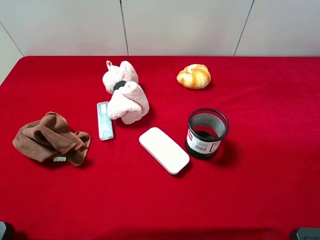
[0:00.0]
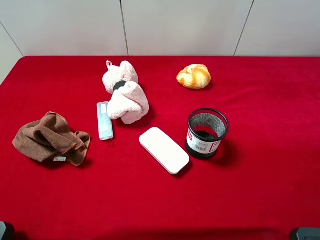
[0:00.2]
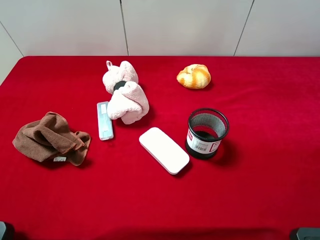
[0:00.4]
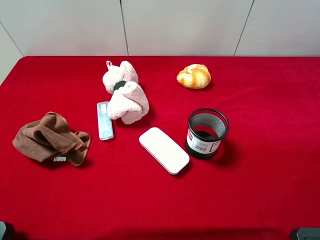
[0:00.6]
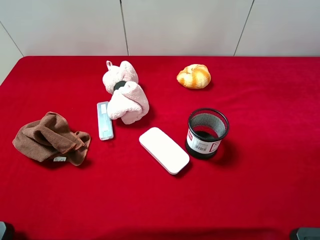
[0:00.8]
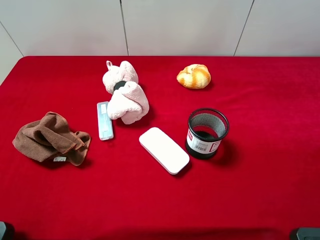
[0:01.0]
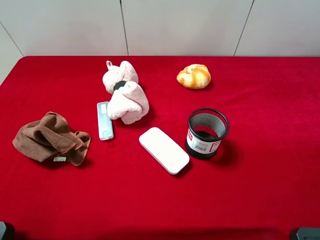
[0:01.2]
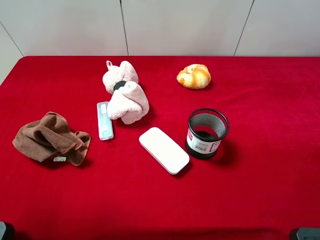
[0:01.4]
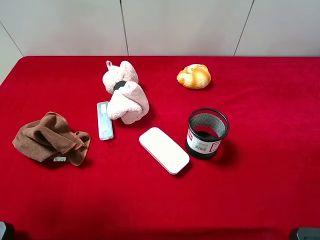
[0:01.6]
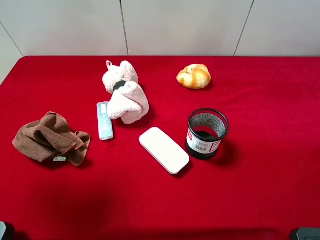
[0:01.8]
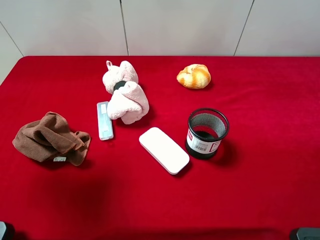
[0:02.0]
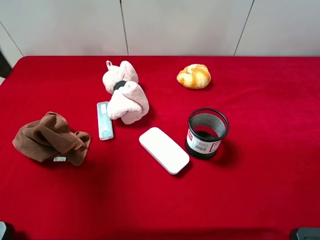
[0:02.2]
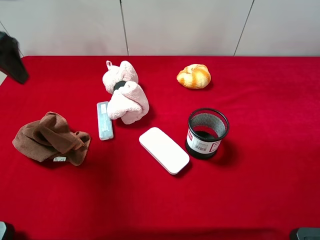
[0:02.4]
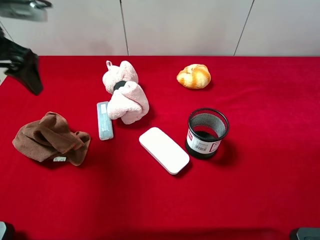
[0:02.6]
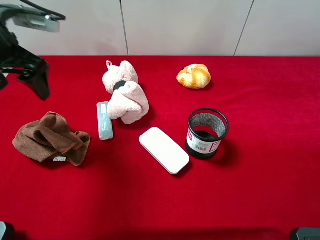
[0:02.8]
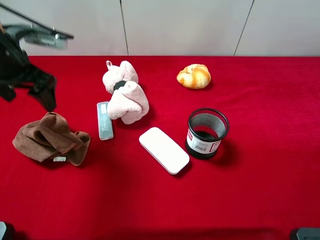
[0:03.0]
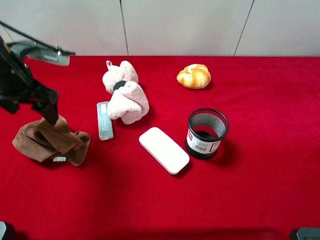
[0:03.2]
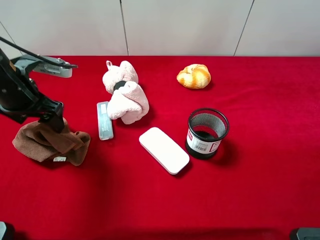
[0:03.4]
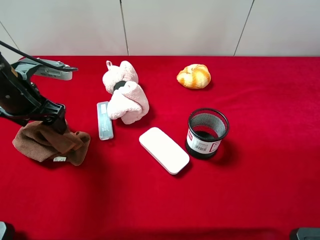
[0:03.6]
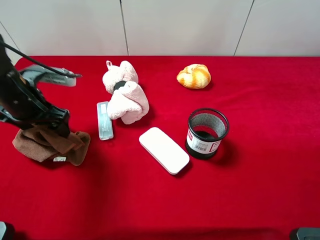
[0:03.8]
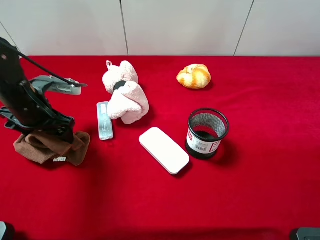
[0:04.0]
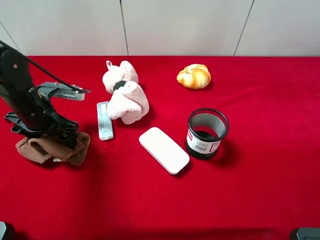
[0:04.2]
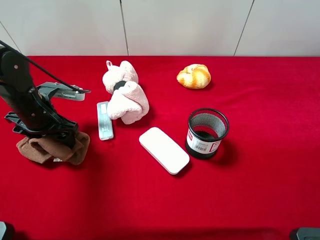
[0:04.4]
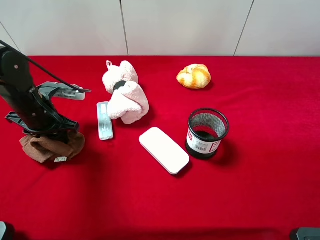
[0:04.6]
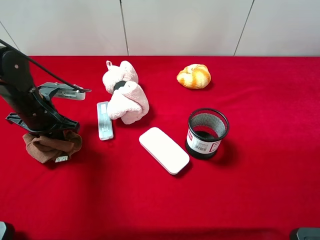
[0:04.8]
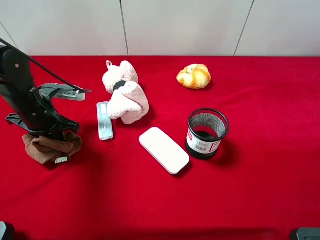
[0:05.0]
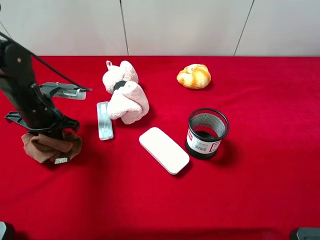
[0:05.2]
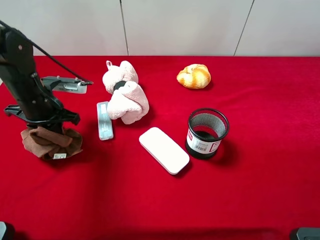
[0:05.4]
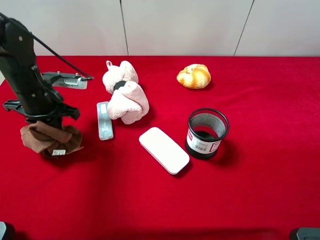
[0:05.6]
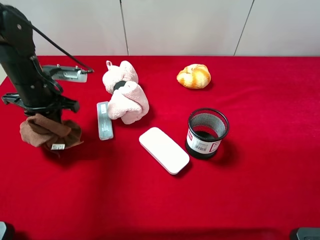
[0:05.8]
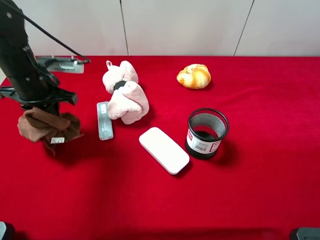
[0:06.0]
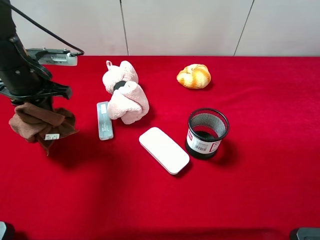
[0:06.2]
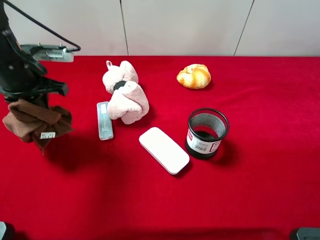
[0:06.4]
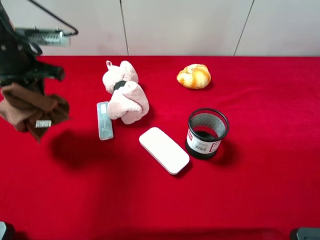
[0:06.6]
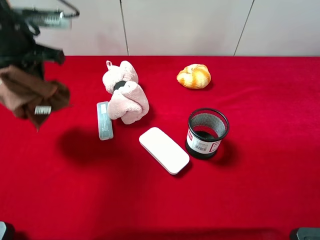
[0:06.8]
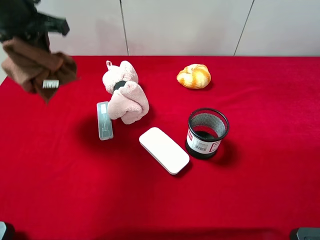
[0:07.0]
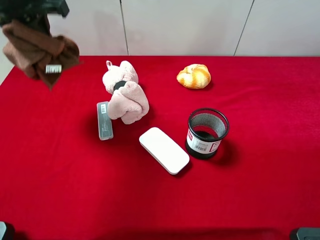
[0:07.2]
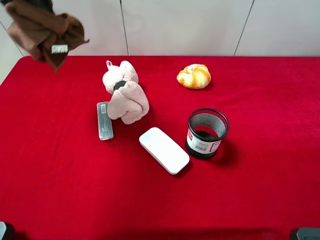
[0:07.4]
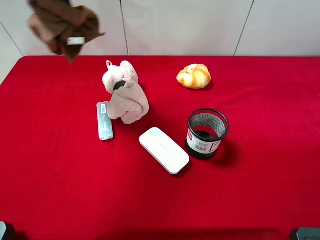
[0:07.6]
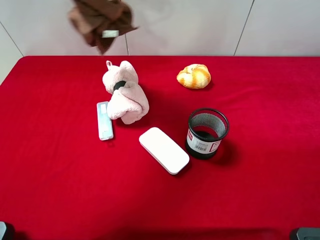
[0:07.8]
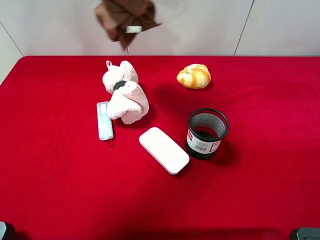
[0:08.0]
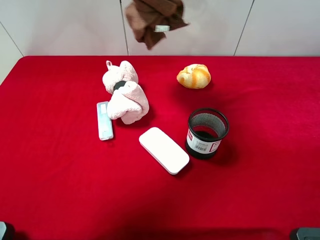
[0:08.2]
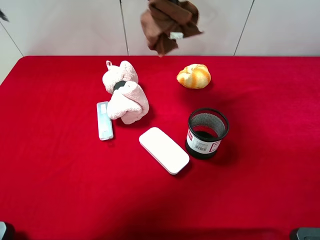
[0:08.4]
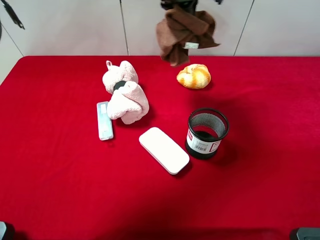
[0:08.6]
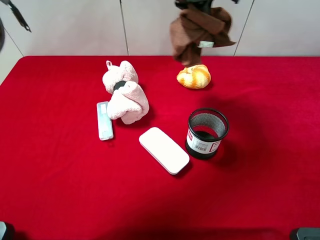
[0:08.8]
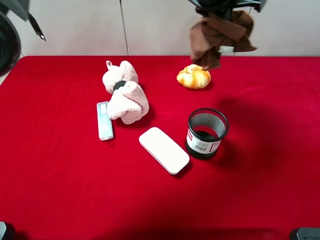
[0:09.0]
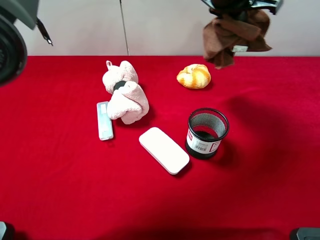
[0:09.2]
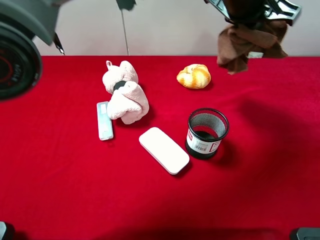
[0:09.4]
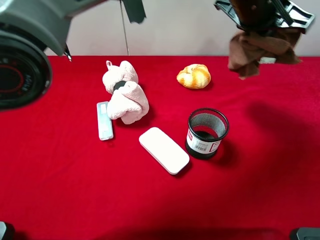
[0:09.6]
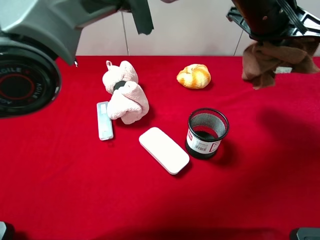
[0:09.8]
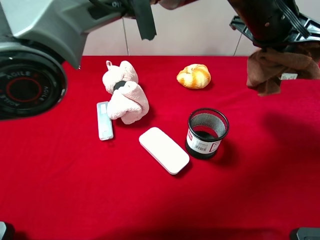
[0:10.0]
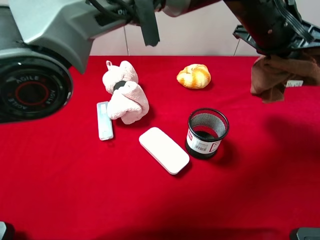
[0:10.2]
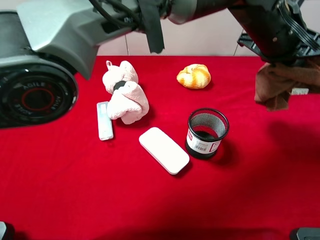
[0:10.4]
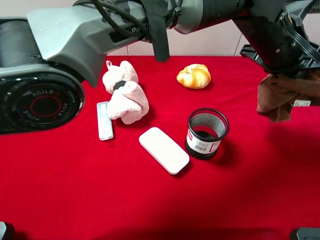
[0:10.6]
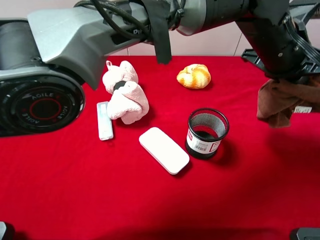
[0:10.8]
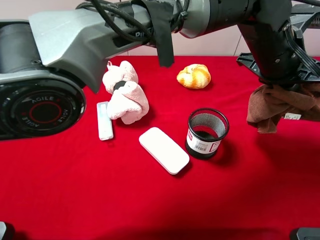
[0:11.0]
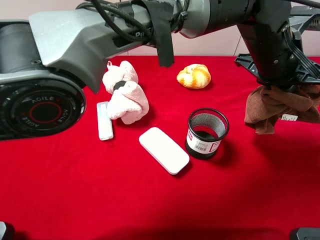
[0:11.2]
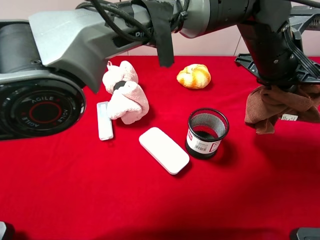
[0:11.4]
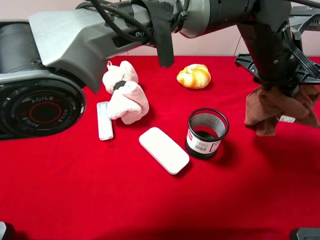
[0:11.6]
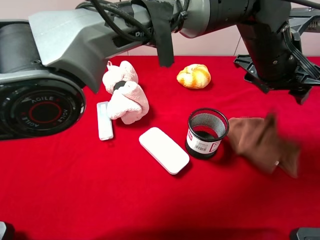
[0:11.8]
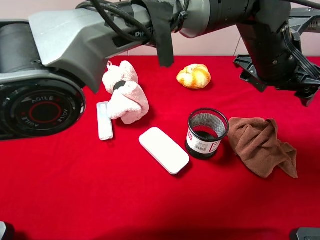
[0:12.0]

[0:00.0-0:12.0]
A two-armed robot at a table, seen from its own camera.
Task of the whole recording: the gripper move the object.
Step, 0:00.0 to 0:04.8: Grasp the brown towel with the left gripper.
0:00.0 to 0:01.6: The left gripper heads forward and upward, covering approximately 15 cm.
0:01.6 to 0:03.0: The left gripper shifts approximately 20 cm forward and downward.
0:03.0 to 0:04.4: The left gripper goes about 10 cm downward.
0:04.4 to 0:06.0: The left gripper shifts about 5 cm upward, and closes its fingers.
0:06.0 to 0:07.6: The left gripper moves upward, about 15 cm.
0:07.6 to 0:09.0: The left gripper travels to the right by roughly 25 cm.
0:09.0 to 0:10.4: The left gripper shifts approximately 10 cm to the right, downward and backward.
0:10.4 to 0:12.0: The left gripper opens.

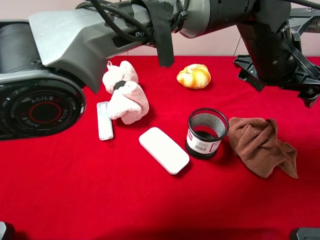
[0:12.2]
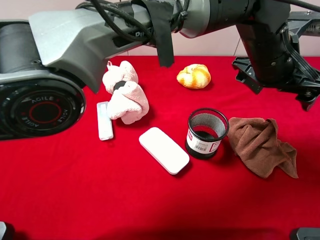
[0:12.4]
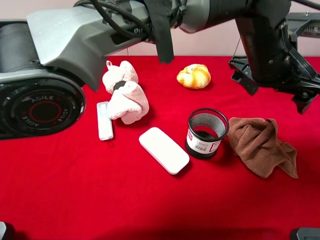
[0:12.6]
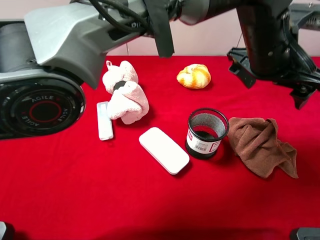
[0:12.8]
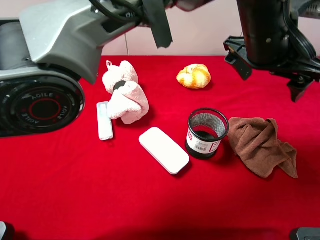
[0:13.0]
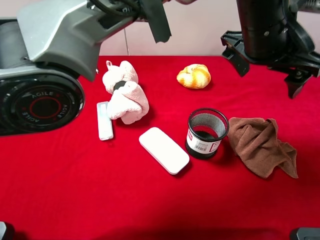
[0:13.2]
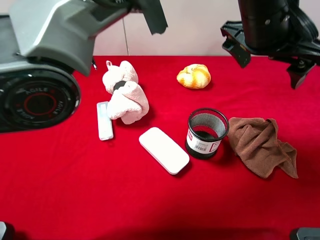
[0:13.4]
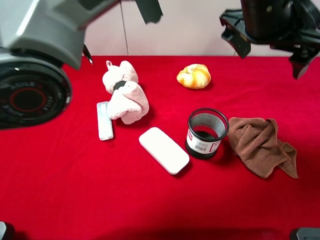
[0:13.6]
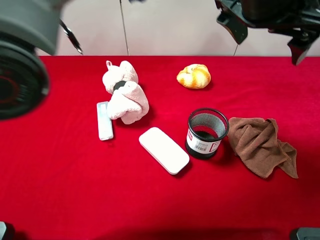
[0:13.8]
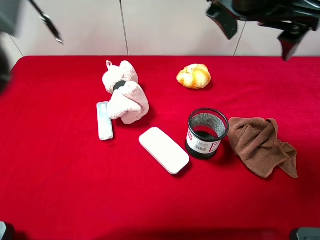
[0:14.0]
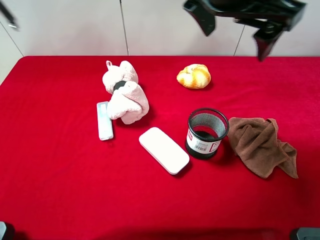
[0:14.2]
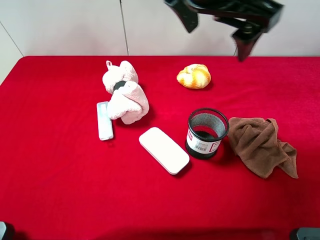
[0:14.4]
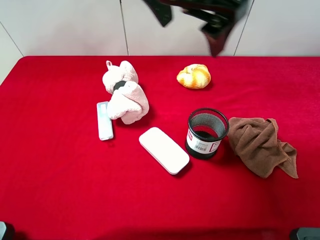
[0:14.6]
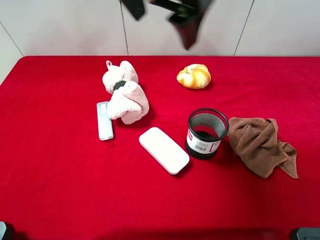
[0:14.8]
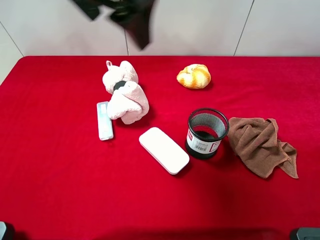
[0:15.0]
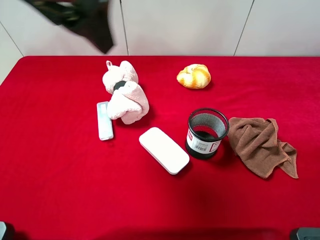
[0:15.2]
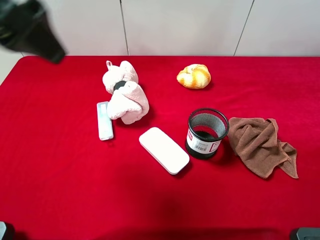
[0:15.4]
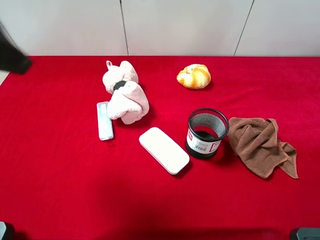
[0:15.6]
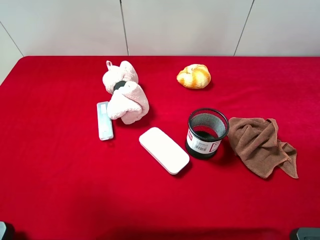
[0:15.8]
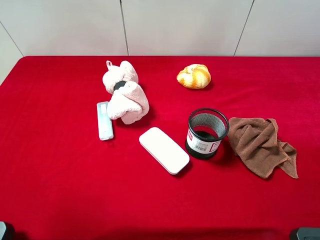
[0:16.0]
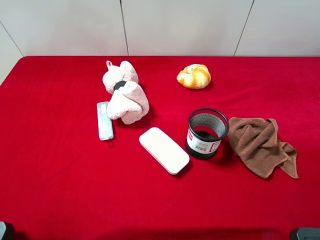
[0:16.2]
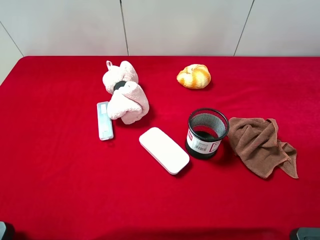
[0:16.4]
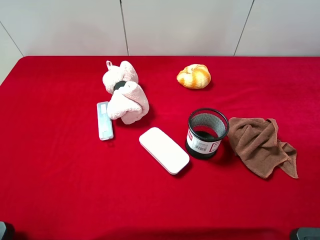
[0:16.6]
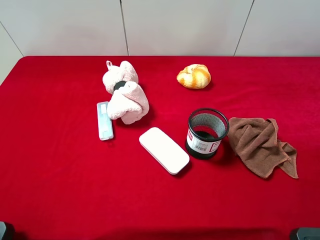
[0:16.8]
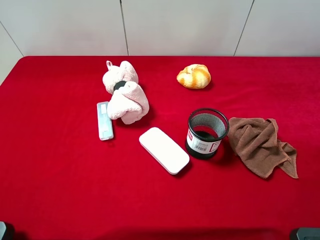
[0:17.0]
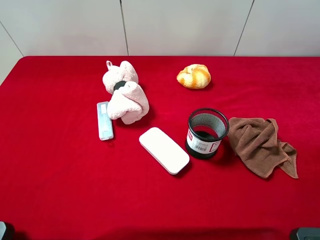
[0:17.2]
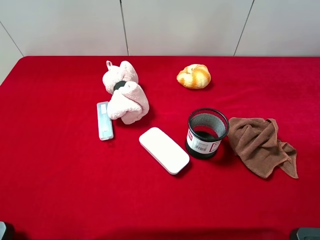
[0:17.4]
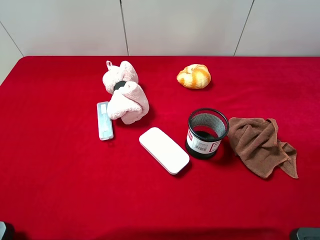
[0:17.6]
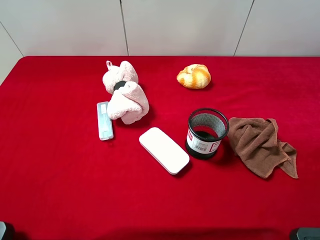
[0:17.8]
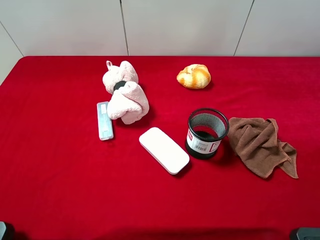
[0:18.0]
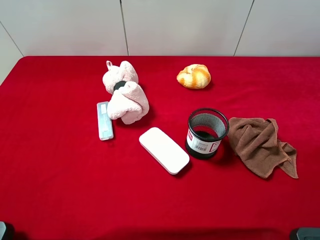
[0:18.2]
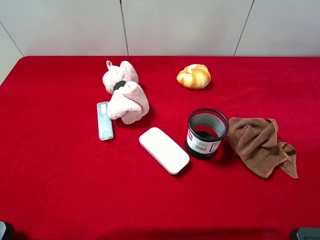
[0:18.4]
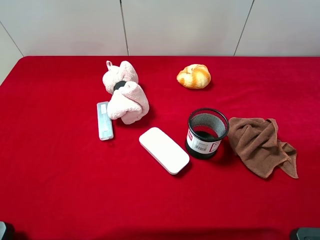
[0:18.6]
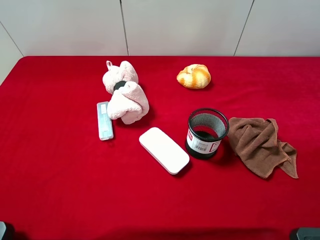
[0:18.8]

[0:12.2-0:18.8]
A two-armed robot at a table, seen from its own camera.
Task of the whole recording: the gripper move the object.
0:12.2 to 0:13.8: The left gripper travels upward and to the left by roughly 10 cm.
0:13.8 to 0:15.4: The left gripper is displaced to the left by approximately 30 cm.
0:15.4 to 0:17.2: The left gripper moves backward, to the left and downward, roughly 25 cm.

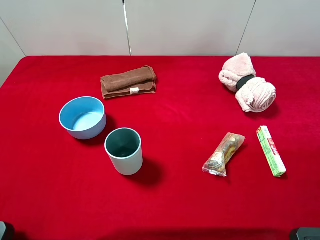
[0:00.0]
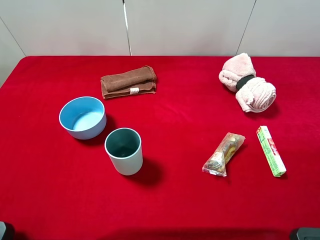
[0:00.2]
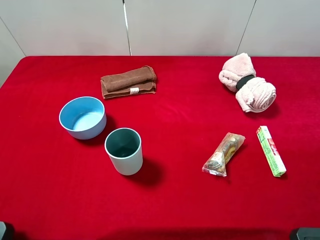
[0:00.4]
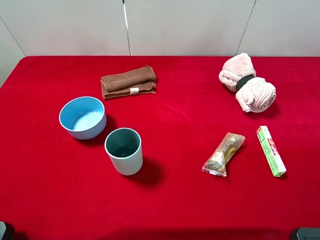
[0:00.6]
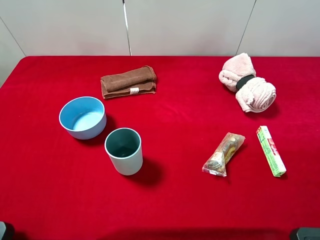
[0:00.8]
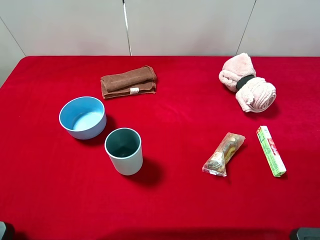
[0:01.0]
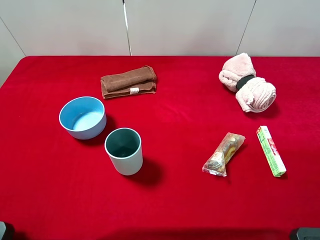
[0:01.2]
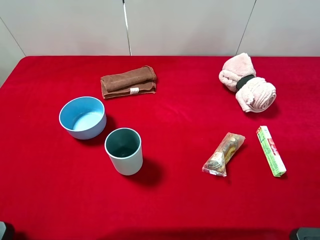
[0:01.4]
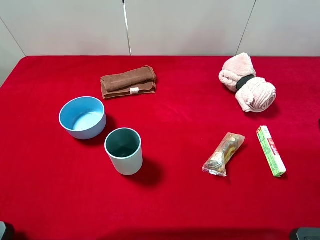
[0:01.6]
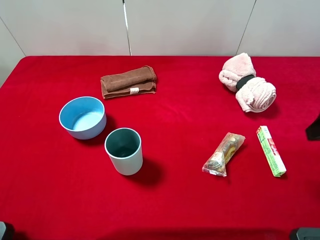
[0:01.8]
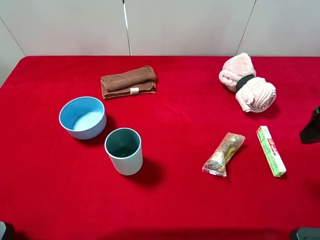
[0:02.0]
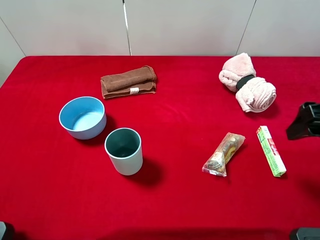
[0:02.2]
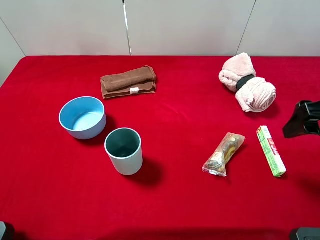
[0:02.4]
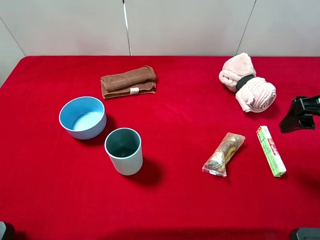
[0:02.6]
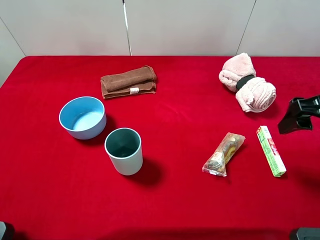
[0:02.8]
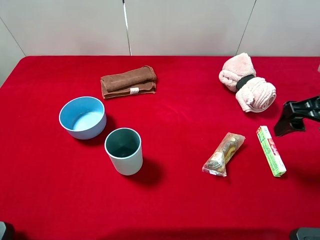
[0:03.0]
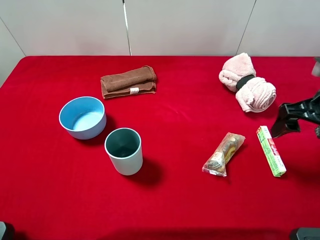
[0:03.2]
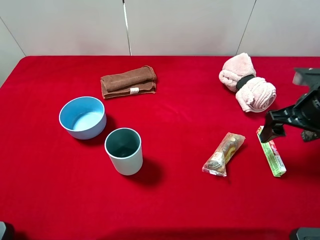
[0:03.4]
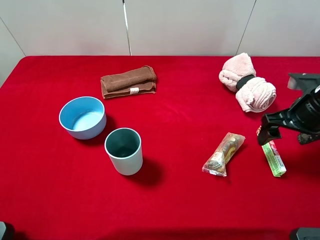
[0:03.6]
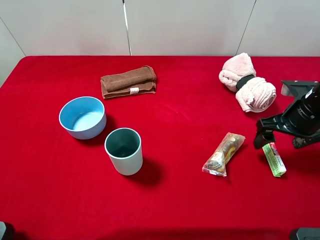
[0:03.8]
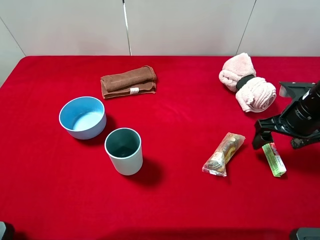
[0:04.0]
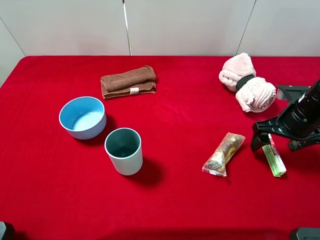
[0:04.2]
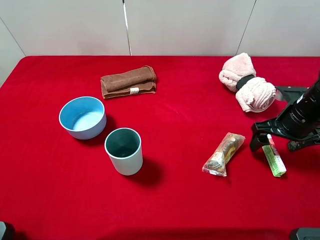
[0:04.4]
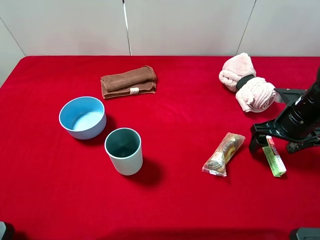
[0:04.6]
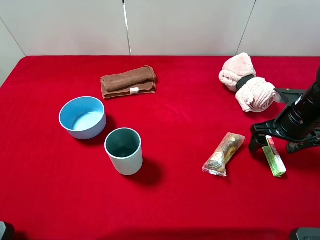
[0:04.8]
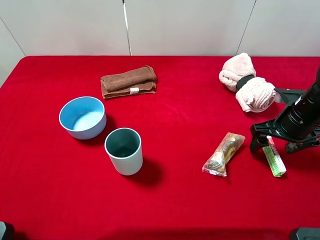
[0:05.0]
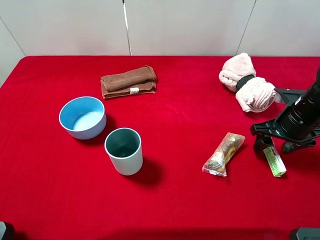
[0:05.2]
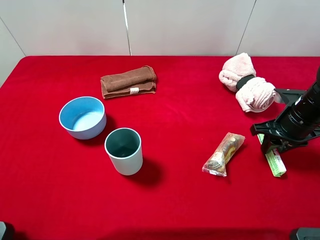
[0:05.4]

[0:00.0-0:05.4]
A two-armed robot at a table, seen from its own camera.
Task of the whole recording: the gripper move the object.
0:01.4 to 0:02.8: The right gripper heads forward and downward, covering some 10 cm.
0:02.8 to 0:04.0: The right gripper goes about 10 cm downward.
0:04.0 to 0:05.4: The right gripper closes up.
